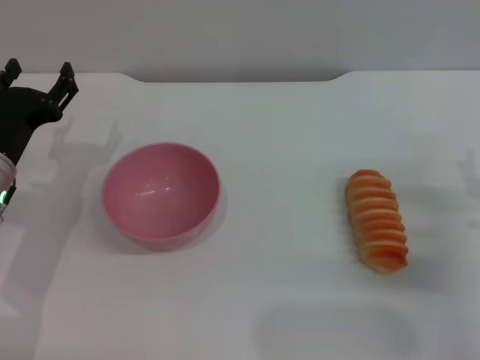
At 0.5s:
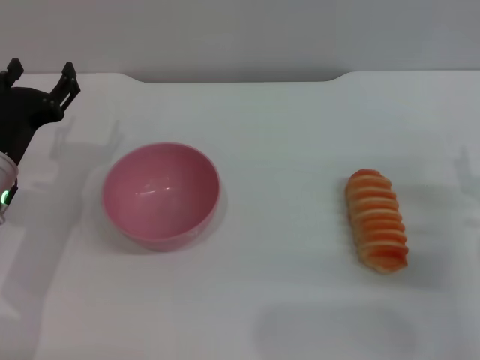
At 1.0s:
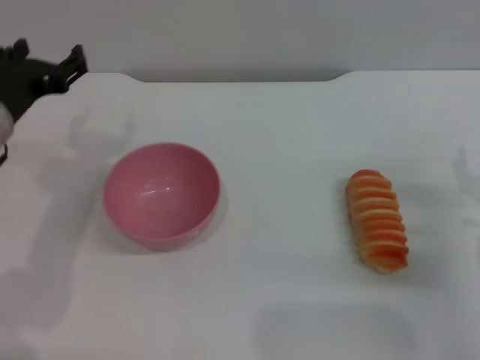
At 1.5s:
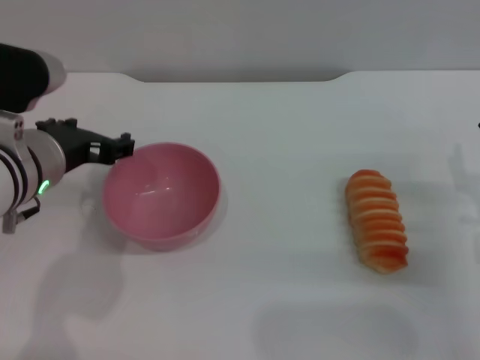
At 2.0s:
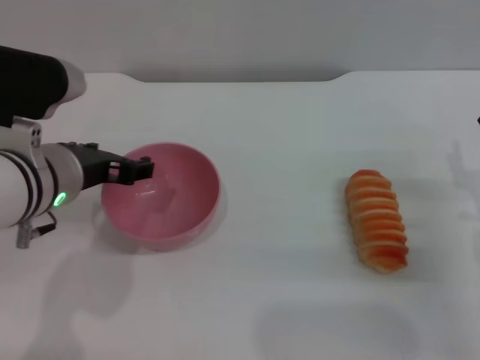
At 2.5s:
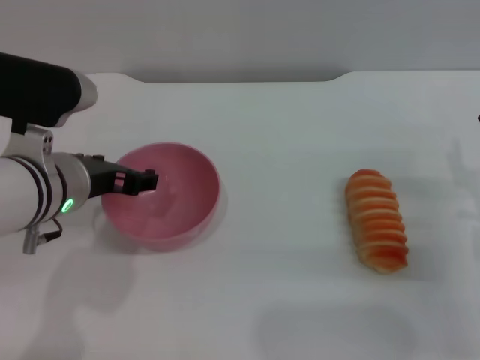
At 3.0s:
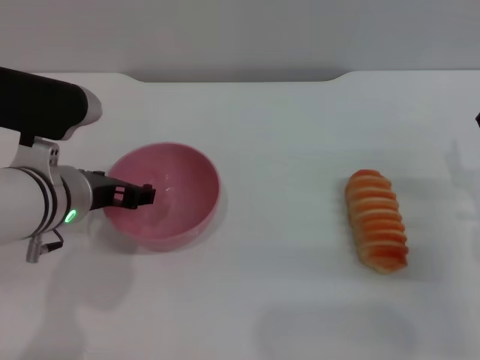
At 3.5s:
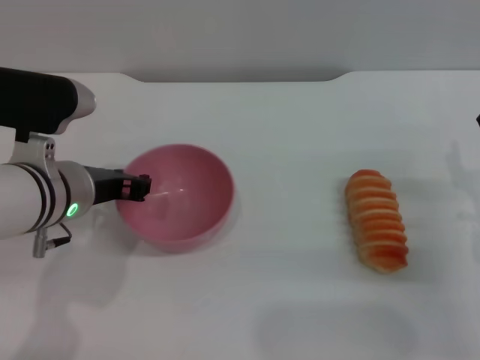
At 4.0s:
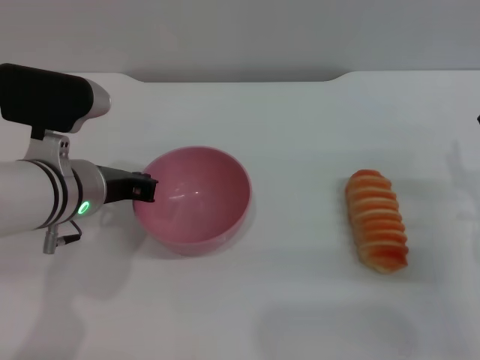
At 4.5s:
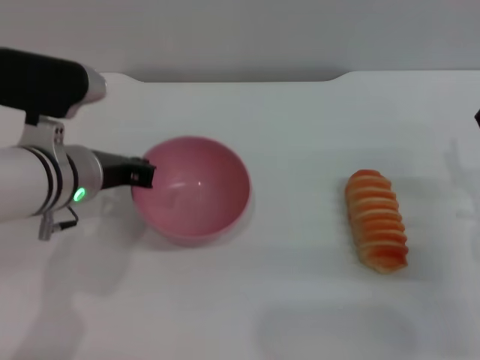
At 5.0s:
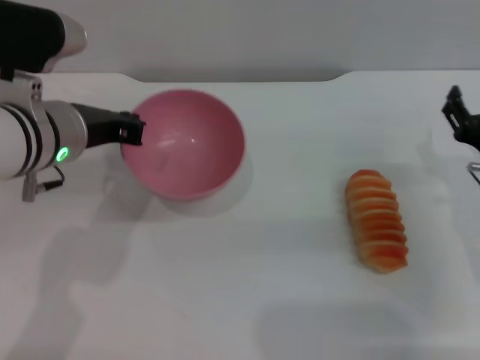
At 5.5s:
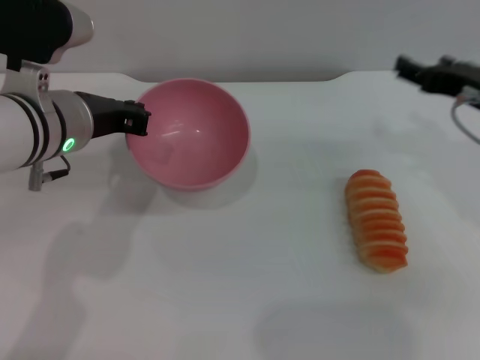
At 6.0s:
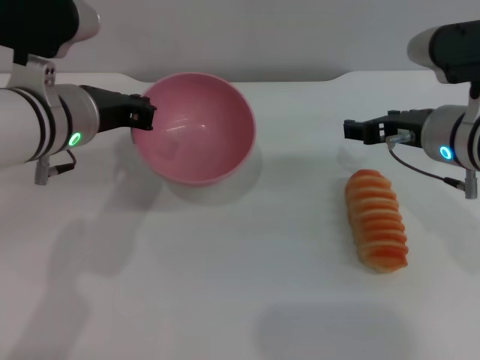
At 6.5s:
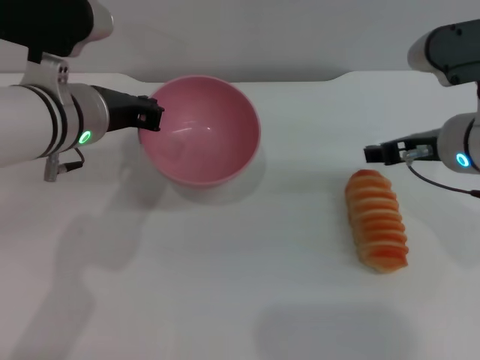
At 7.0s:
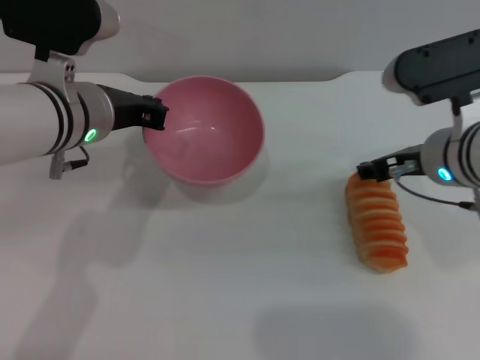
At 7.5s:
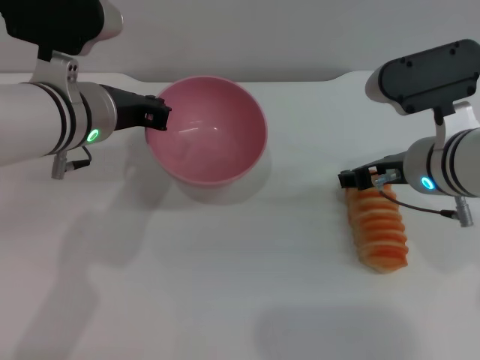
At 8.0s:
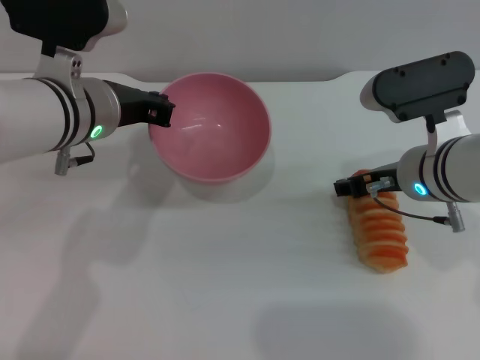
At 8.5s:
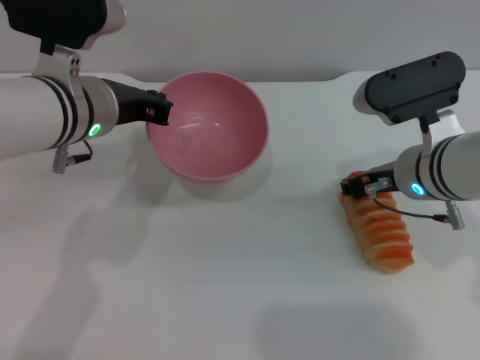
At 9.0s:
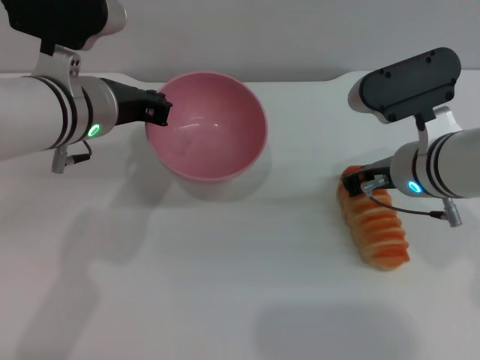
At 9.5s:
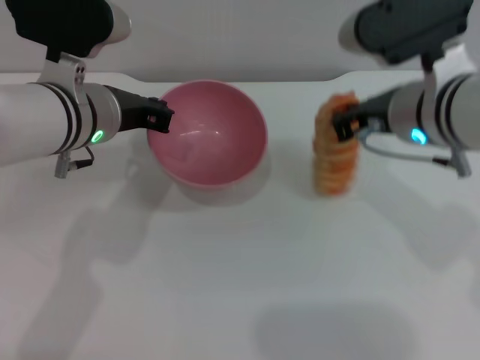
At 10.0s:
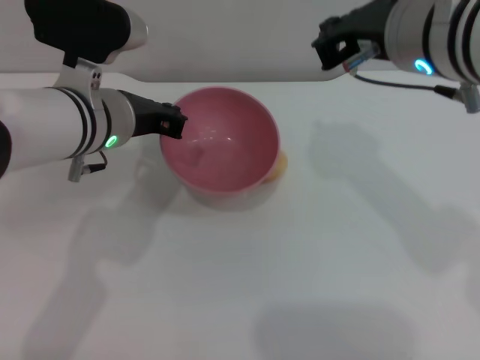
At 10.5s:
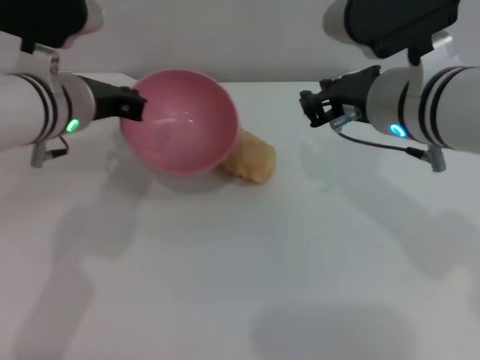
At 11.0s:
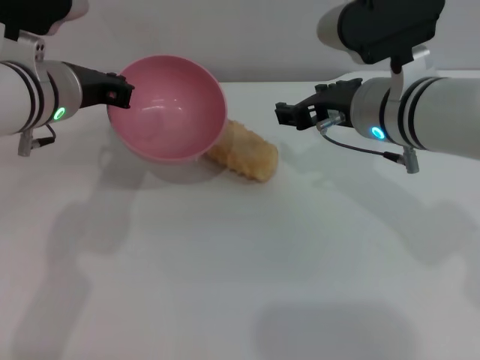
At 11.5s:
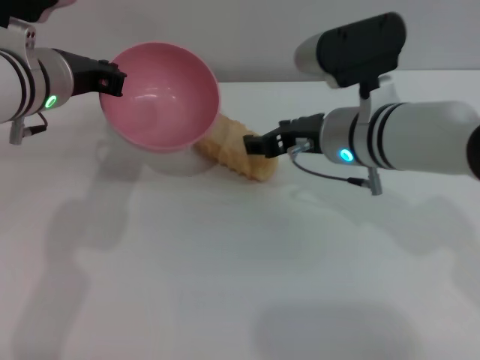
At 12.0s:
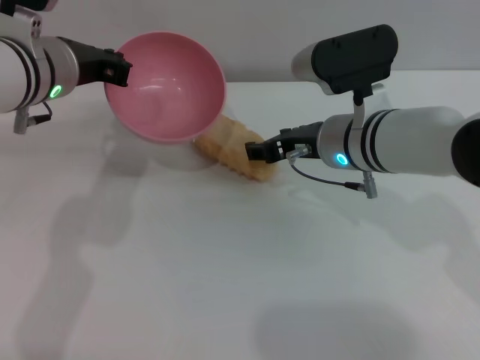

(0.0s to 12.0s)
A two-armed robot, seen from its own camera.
Task of the whole recording: put the bread into the pink bowl and pour it out repeatedly.
Step, 0.0s - 5.0s: Pick up the bowl with the left gripper.
0.0s - 2.0s: The left gripper is displaced upward and to the right by approximately 10 cm.
2.0s - 4.0s: The left gripper closes up.
4.0s - 6.0s: The left gripper is displaced upward by approximately 5 cm, while the right gripper travels upward, to the left and forward by roughly 15 cm.
6.0s - 8.0s: The grippers move only a little.
8.0s - 10.0s: The right gripper moves upward, roughly 15 cm, and closes.
10.0s - 12.0s: The left gripper moves roughly 5 cm. The right gripper travels downward by some 15 cm, and opens its fingers.

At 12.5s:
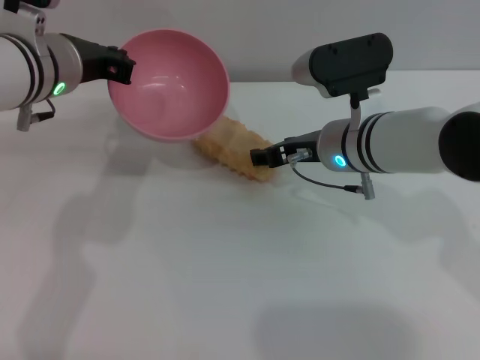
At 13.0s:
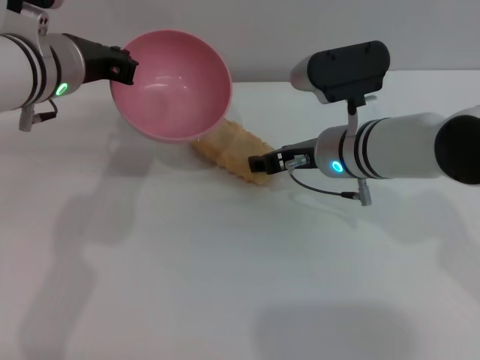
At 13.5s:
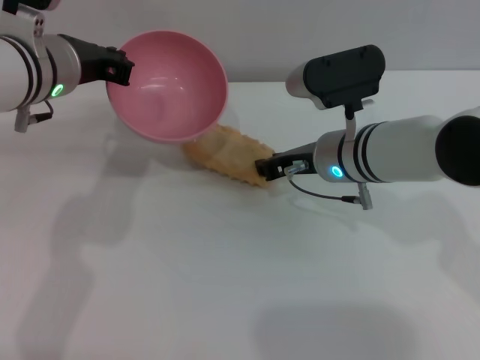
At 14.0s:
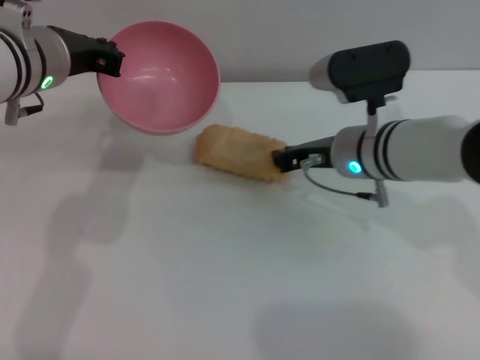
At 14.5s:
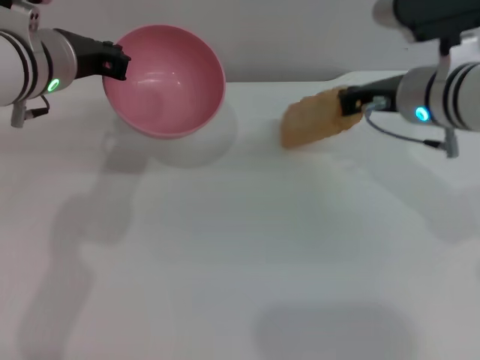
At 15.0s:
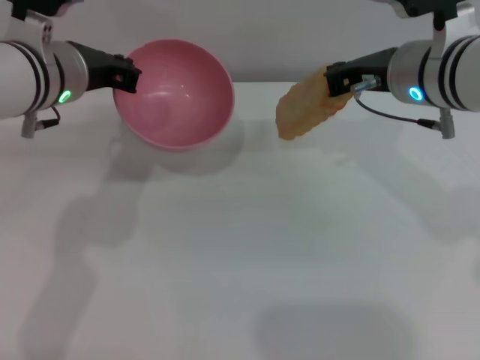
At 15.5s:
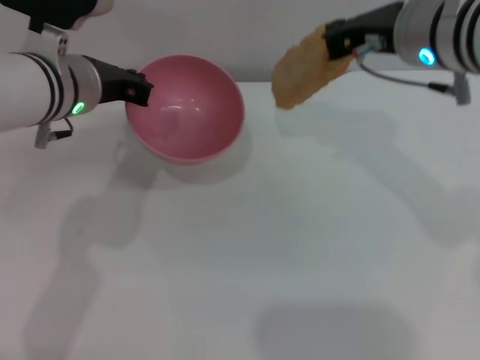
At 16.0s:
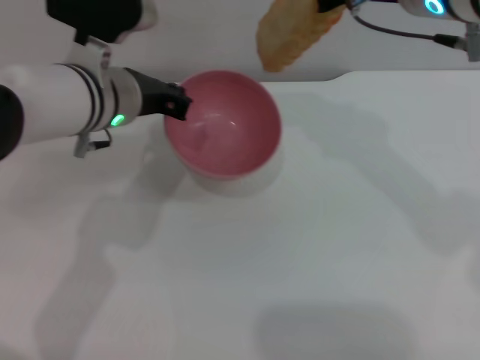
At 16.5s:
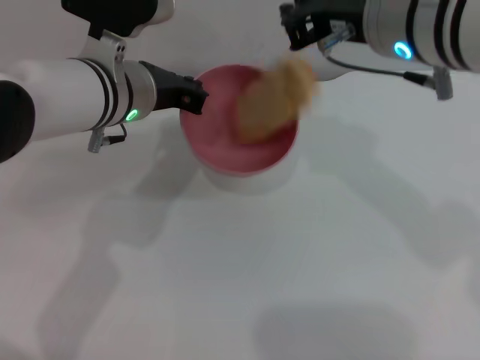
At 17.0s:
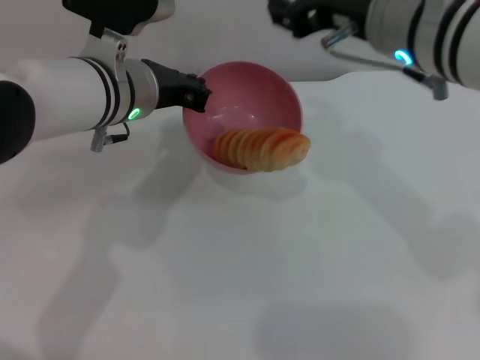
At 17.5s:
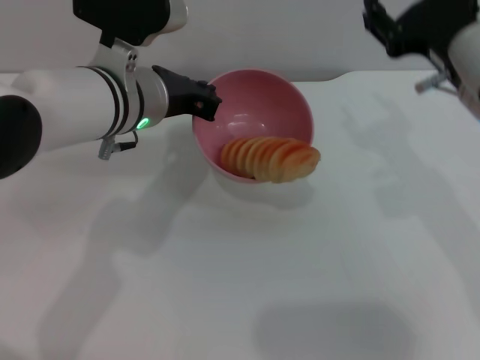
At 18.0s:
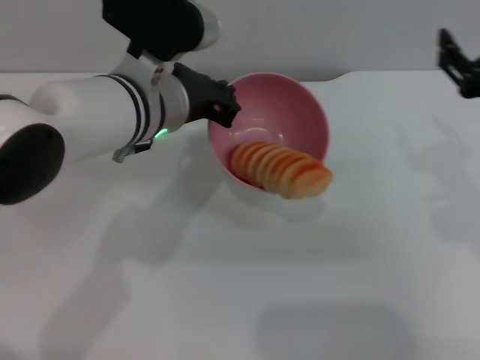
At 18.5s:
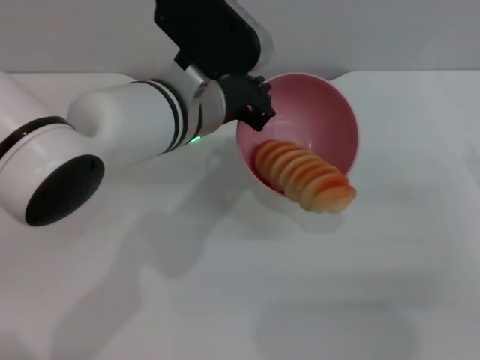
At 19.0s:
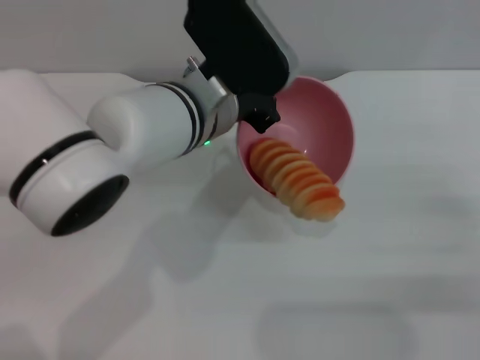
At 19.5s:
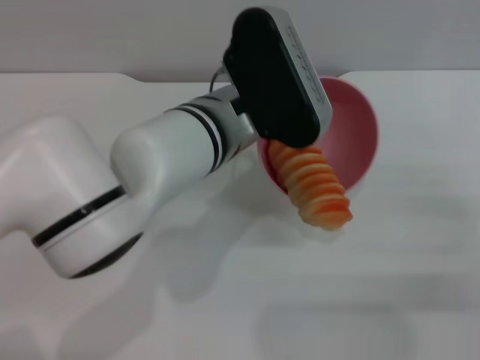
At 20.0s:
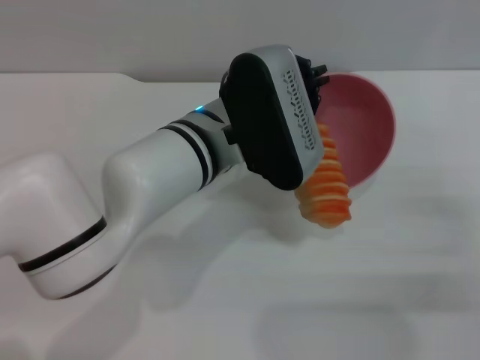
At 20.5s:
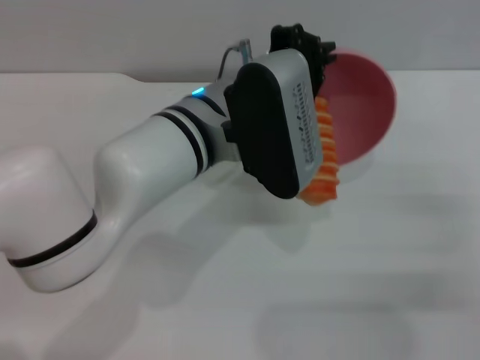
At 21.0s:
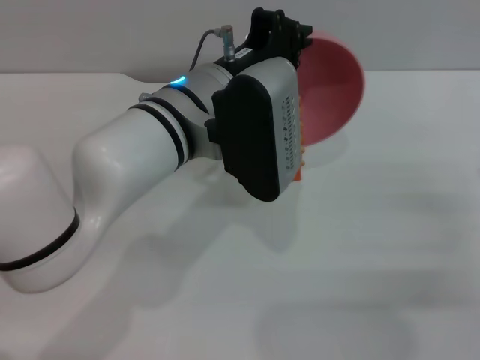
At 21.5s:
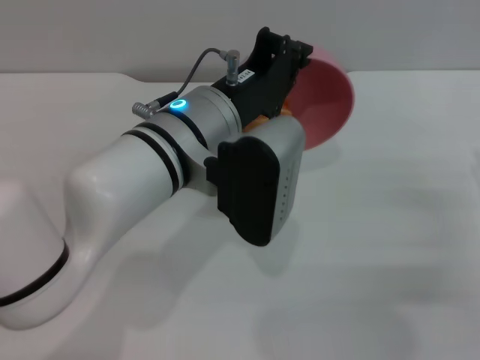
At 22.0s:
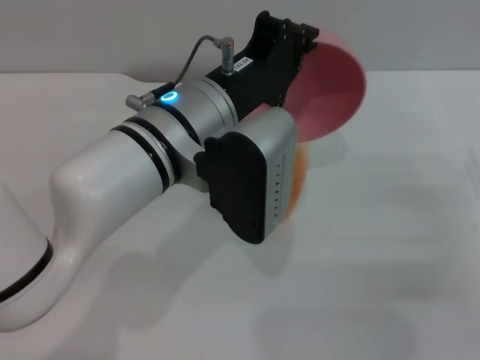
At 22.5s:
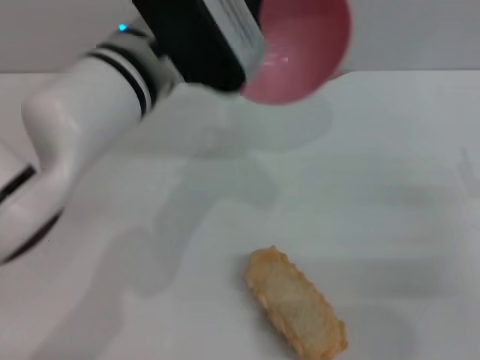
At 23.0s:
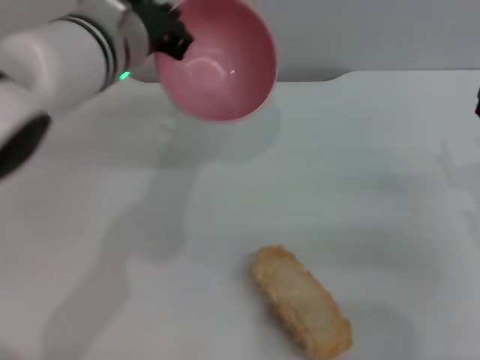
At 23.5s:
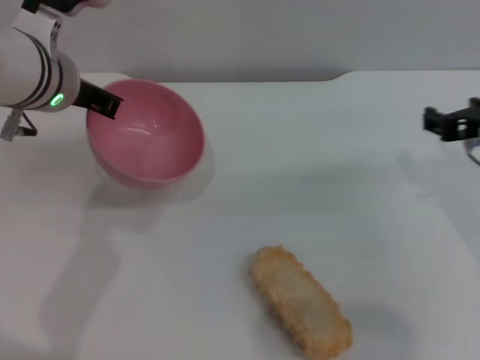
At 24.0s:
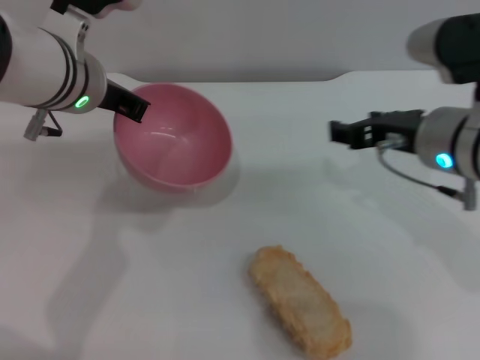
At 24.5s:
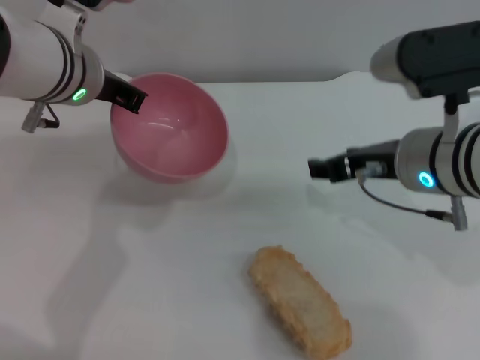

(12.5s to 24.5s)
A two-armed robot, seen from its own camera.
Task of the whole recording: put the bread into the pink bowl and pour it out repeatedly.
Step, 12.5s - 15.0s: Pick up the bread with the right gripper.
Step, 15.5s - 16.5s: Place the bread into the bowl.
Step, 17.0s - 22.0s: Pour the bread out of the bowl.
12.5s - 14.5s: The right gripper heads upward and to the right, covering roughly 10 cm, and closes its fingers.
14.5s - 16.5s: The left gripper shifts approximately 5 cm to the right. Meanwhile the right gripper travels upward, to the left and backward by some 15 cm.
16.5s - 18.5s: The left gripper travels to the right by some 5 cm; the right gripper shifts roughly 30 cm to the right, downward and backward, and opens.
20.5s - 22.5s: The left gripper shifts by approximately 5 cm.
22.5s - 24.5s: The left gripper travels to the left by some 5 cm, while the right gripper shifts roughly 20 cm to the left, upward and forward.

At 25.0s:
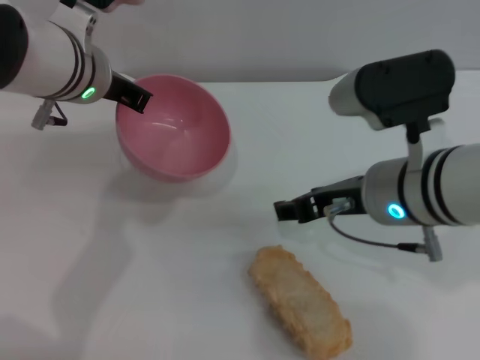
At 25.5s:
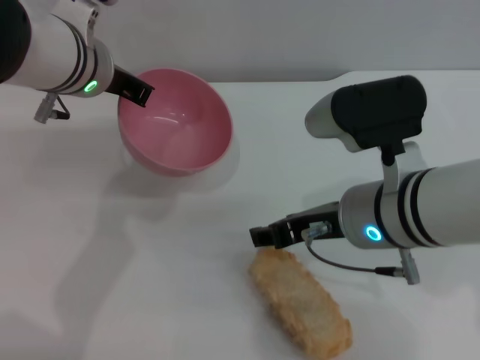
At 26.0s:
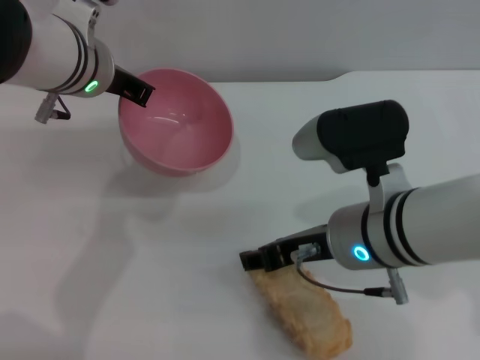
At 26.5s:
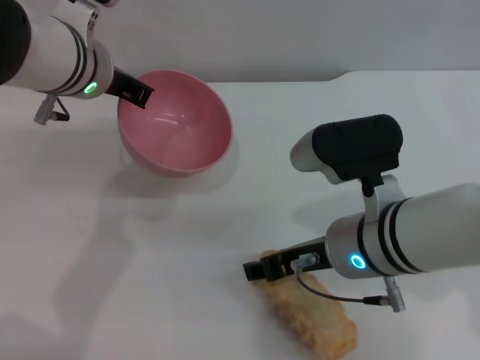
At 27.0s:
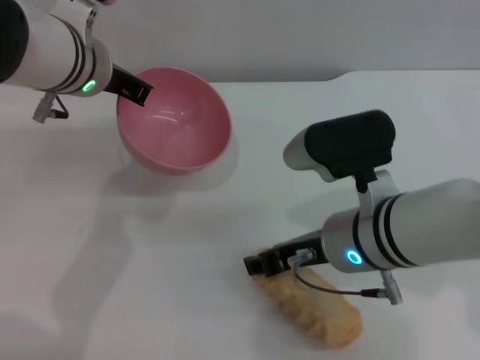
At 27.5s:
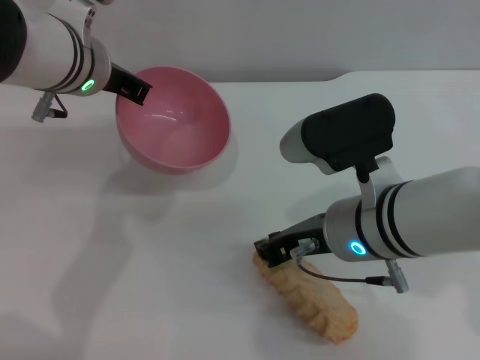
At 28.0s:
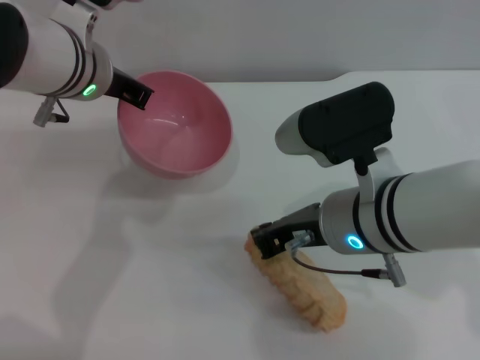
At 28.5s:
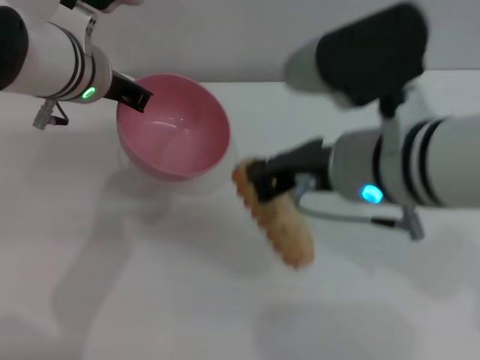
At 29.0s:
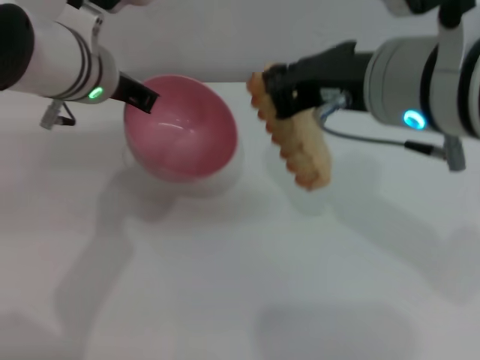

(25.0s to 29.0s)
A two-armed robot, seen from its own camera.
Task of the whole recording: put the bread into the pink bowl and pour it out repeatedly.
27.0s - 29.0s: The right gripper shifts about 15 cm upward, and closes its fingers.
